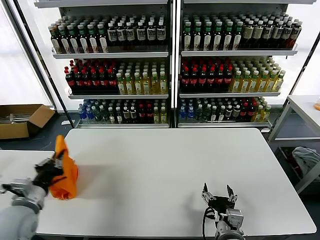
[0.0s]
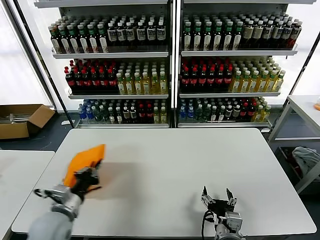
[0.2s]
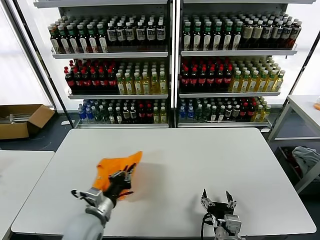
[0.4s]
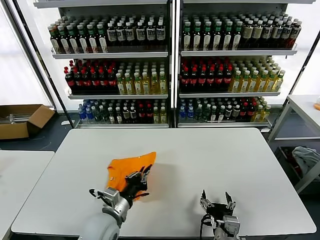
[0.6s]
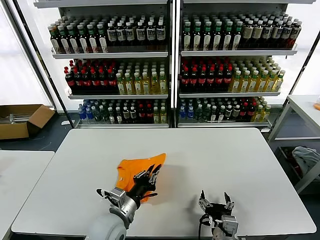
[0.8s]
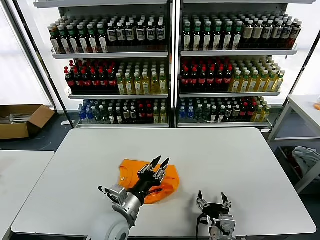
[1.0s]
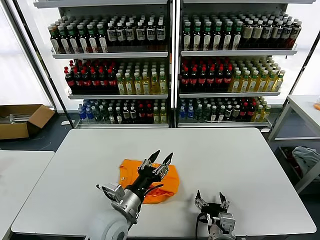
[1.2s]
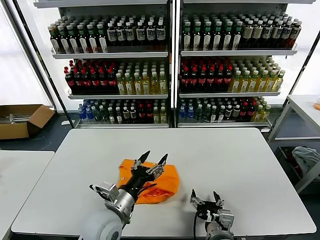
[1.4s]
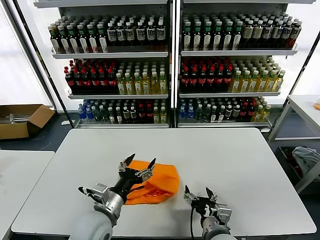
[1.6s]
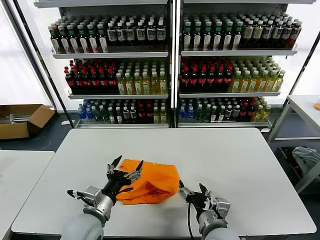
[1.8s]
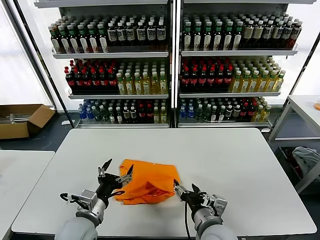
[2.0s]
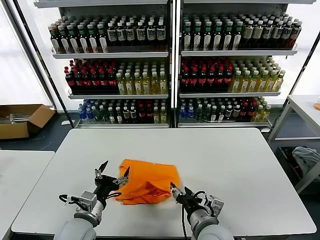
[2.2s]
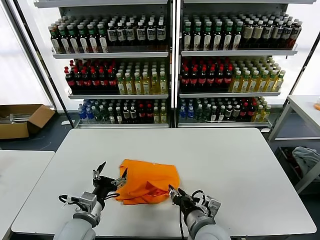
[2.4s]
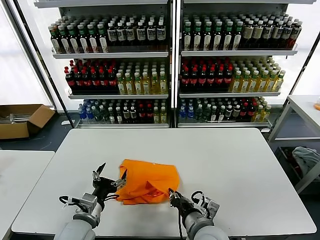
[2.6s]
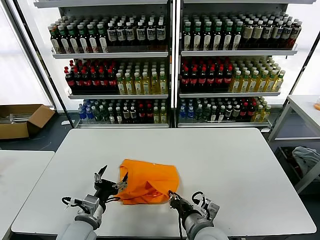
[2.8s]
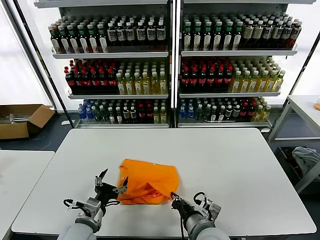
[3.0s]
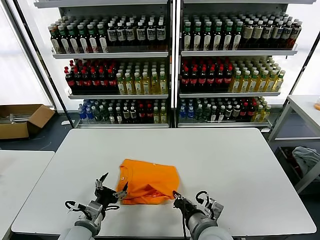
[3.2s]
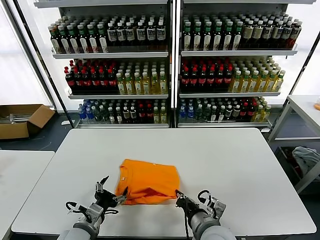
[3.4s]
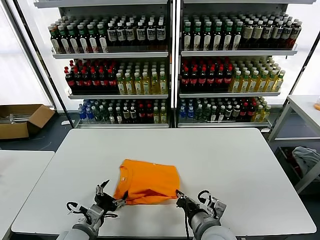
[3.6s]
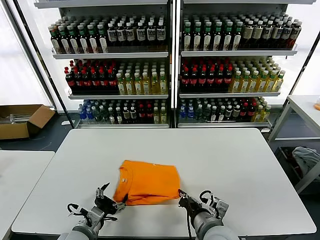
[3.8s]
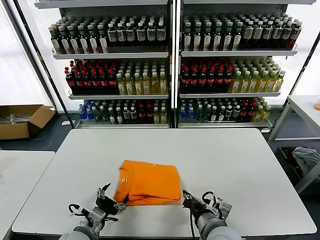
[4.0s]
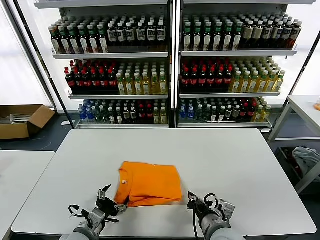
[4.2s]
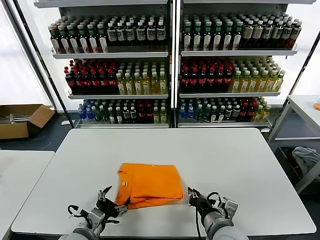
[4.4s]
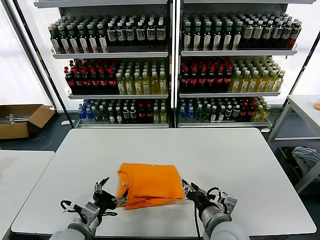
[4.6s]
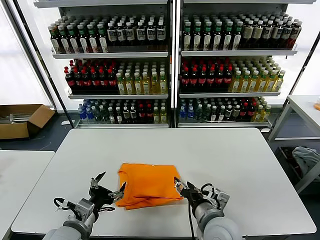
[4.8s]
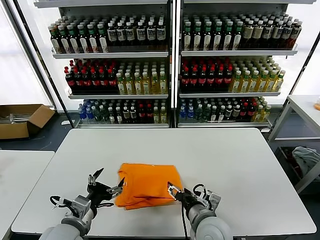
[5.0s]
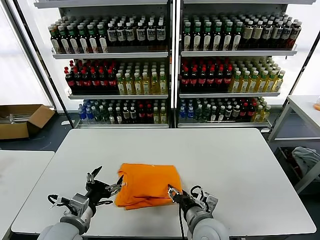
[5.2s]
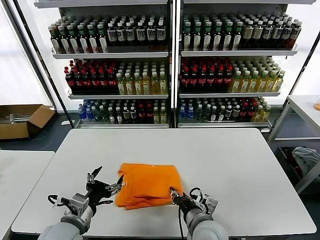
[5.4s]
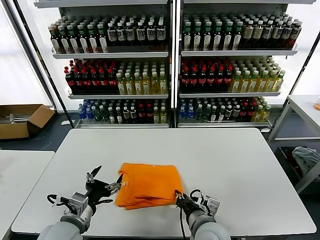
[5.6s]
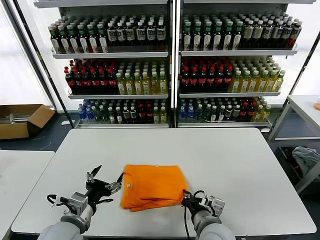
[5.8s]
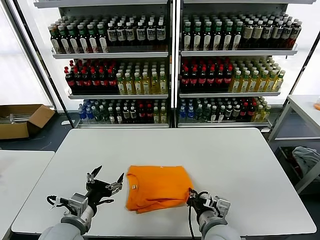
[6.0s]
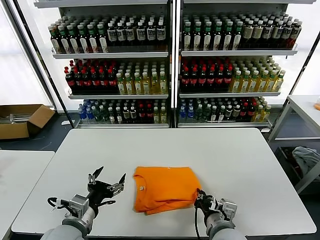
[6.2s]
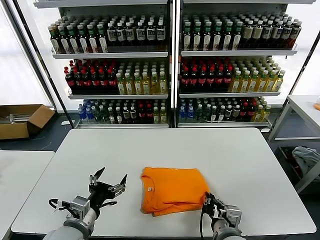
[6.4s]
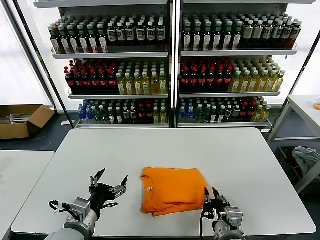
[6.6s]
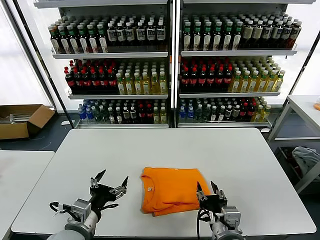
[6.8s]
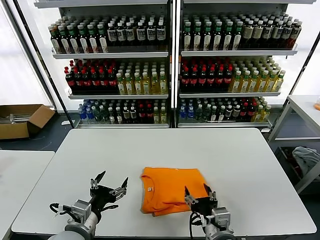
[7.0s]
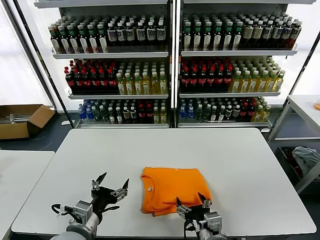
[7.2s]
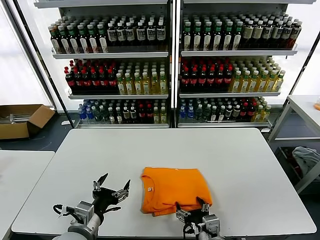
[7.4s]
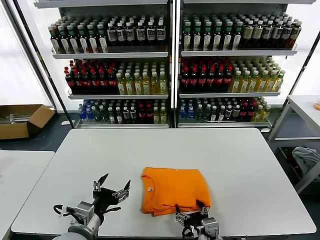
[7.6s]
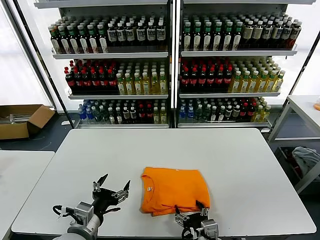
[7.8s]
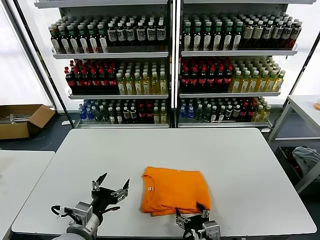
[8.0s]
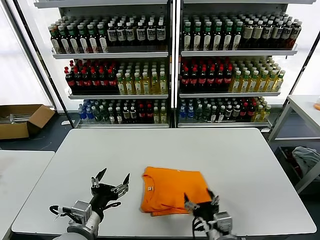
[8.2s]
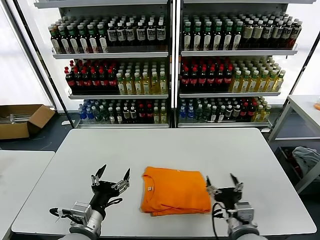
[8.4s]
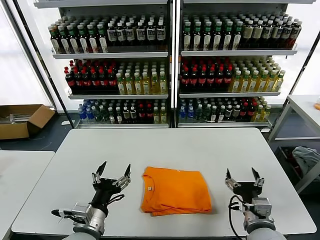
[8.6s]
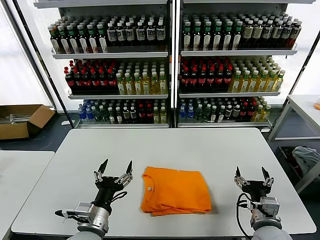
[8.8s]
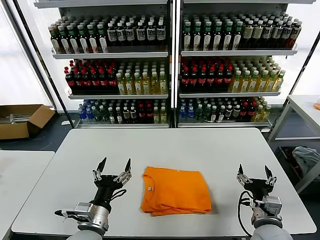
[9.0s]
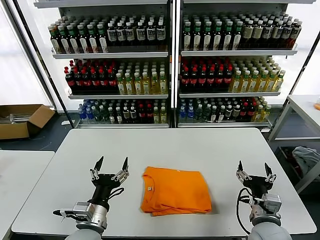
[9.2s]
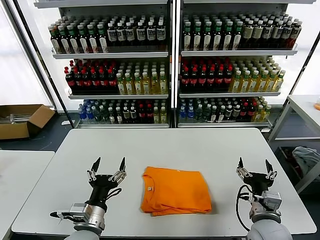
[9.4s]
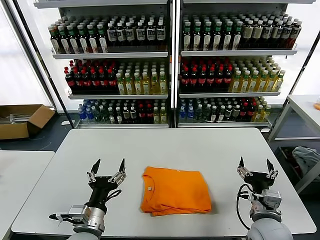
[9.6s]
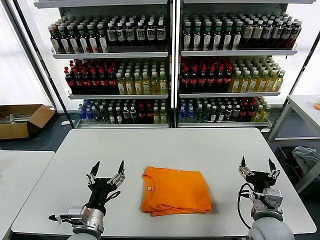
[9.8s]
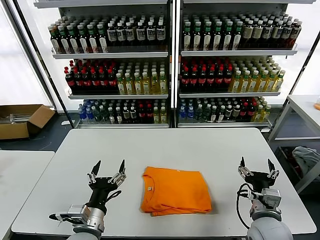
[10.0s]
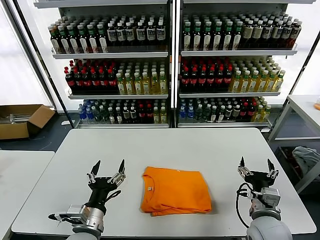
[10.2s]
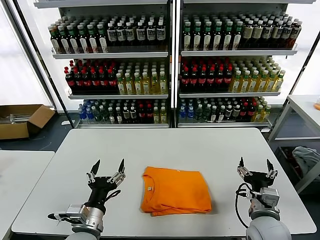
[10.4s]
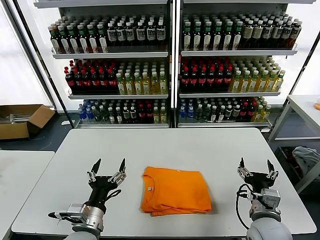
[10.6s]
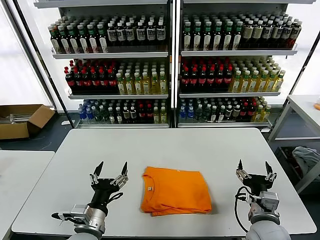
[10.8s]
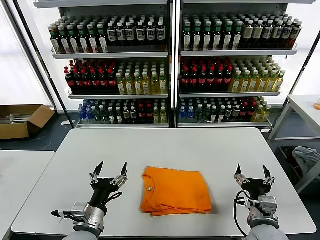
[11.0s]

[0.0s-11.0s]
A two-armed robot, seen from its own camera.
Task of the whole recording: fold and organize the clothes.
Step, 1.4s to 8.0s: Drag the clothes to the center of the table.
0.0s to 1.6s: The left gripper goes approximately 20 cm to the right, and opens up.
1.6s to 3.2s: The right gripper closes up. Meanwhile the left gripper shifts about 10 cm to the left and downward.
3.2s to 4.8s: The left gripper moves upward, about 5 cm. Meanwhile the right gripper opens up.
4.8s to 6.2s: The right gripper closes up.
6.2s to 7.8s: The right gripper shifts by roughly 5 cm, and opens up.
7.8s to 9.4s: The right gripper heads to the right and forward, covering roughly 15 cm.
9.4s to 11.0s: Both grippers stay put.
